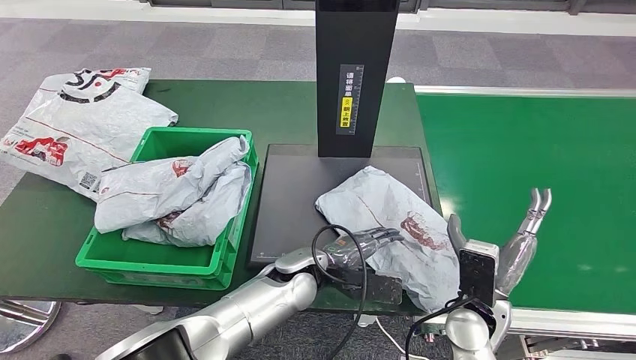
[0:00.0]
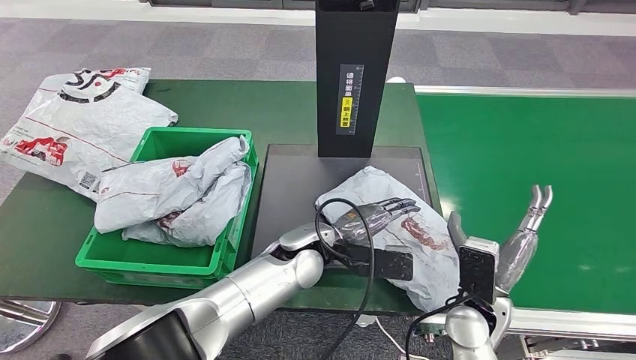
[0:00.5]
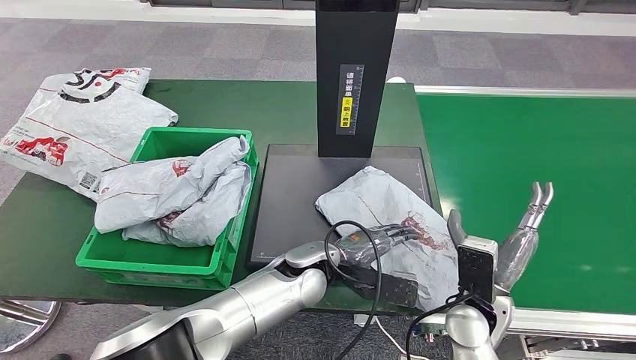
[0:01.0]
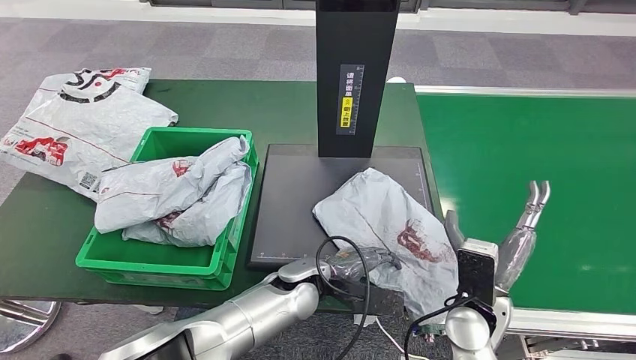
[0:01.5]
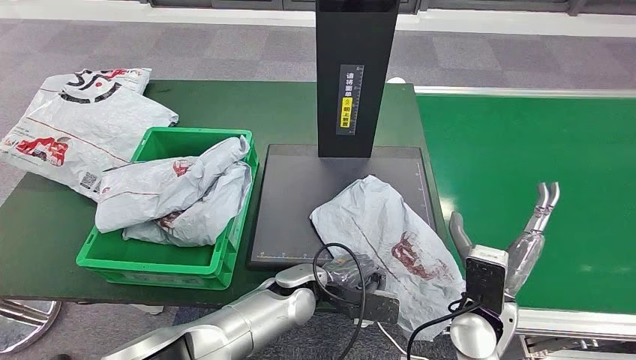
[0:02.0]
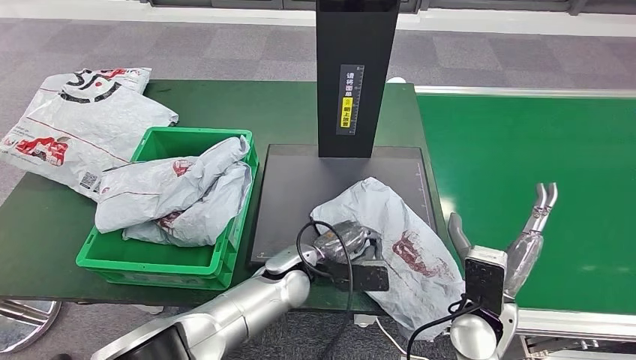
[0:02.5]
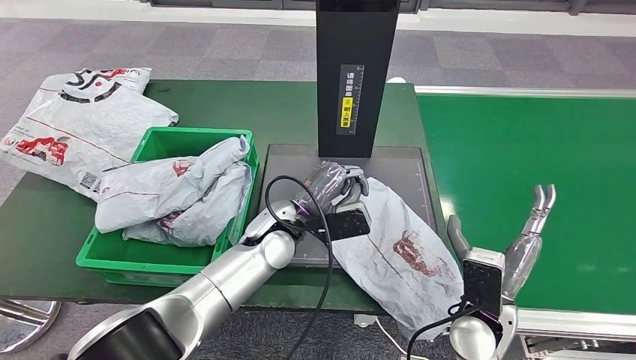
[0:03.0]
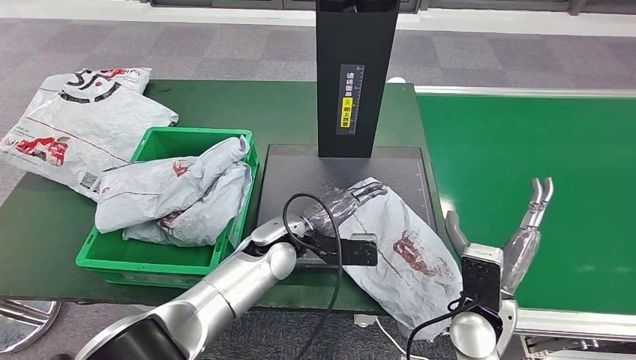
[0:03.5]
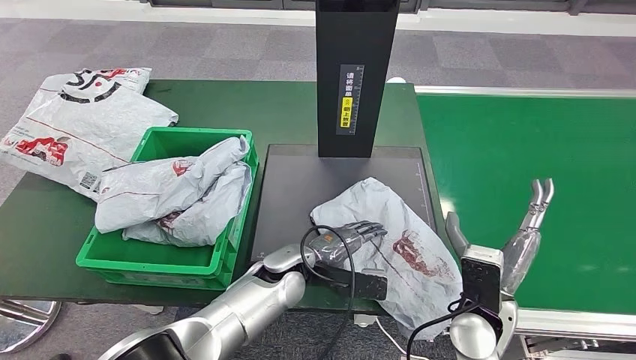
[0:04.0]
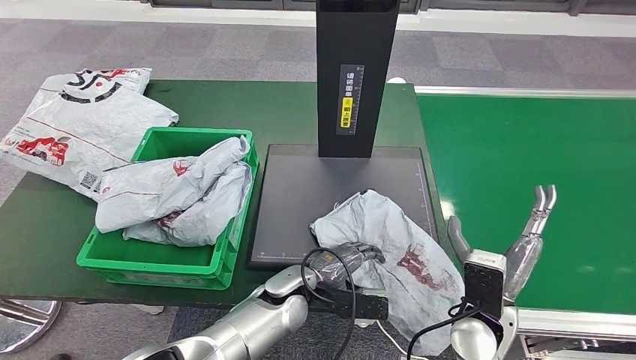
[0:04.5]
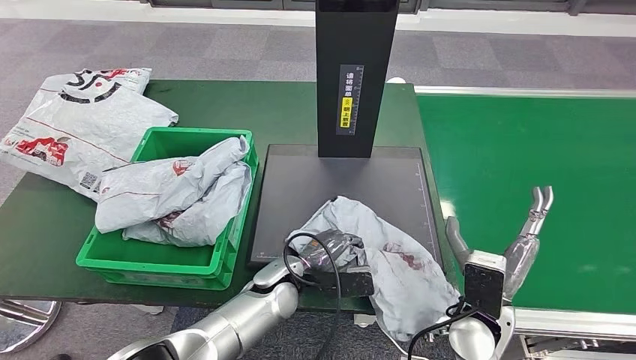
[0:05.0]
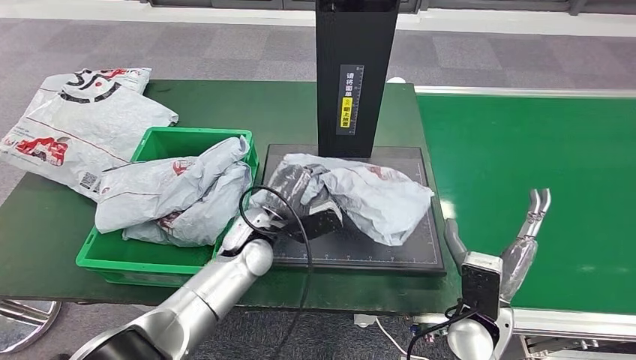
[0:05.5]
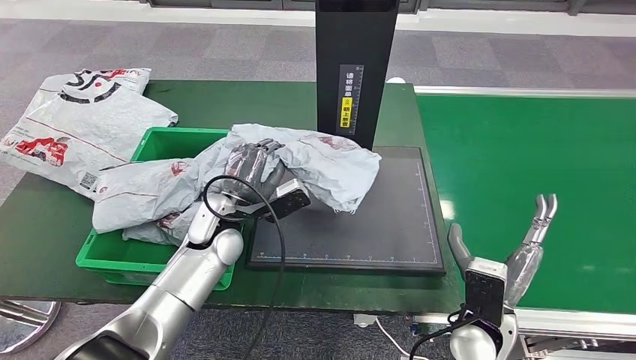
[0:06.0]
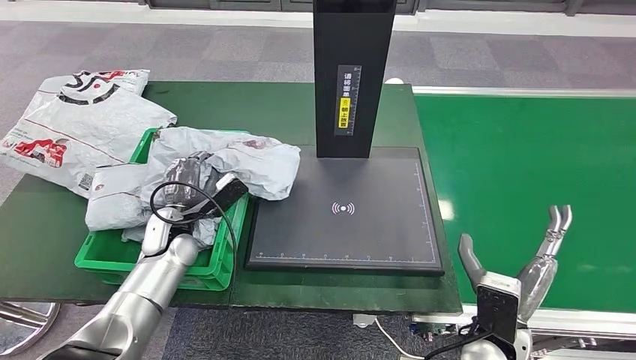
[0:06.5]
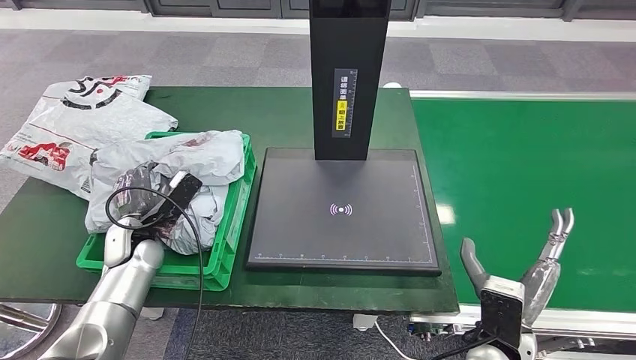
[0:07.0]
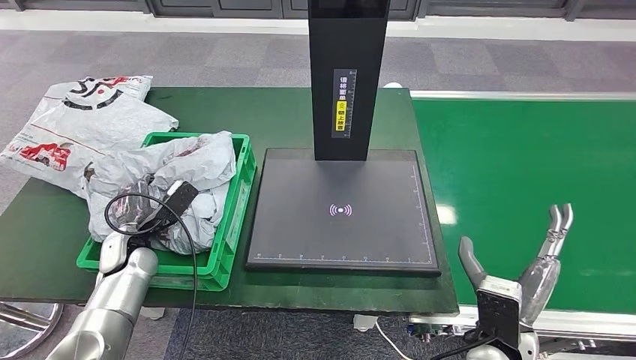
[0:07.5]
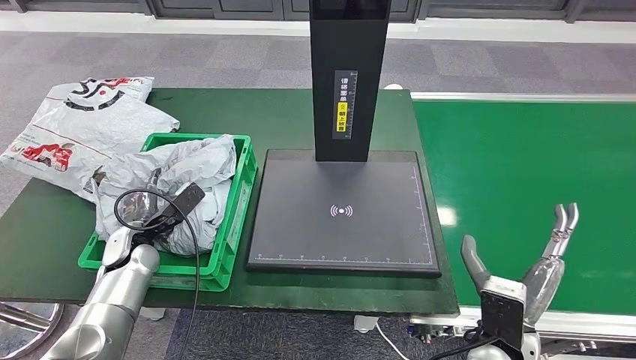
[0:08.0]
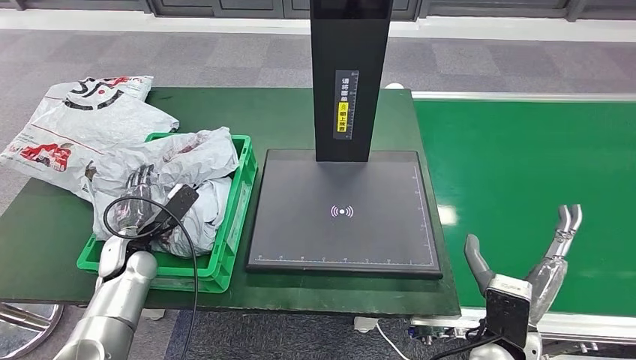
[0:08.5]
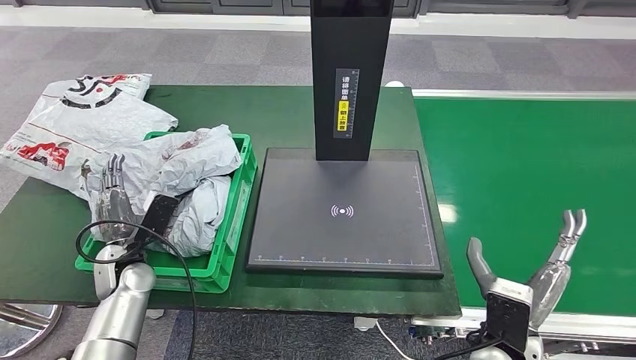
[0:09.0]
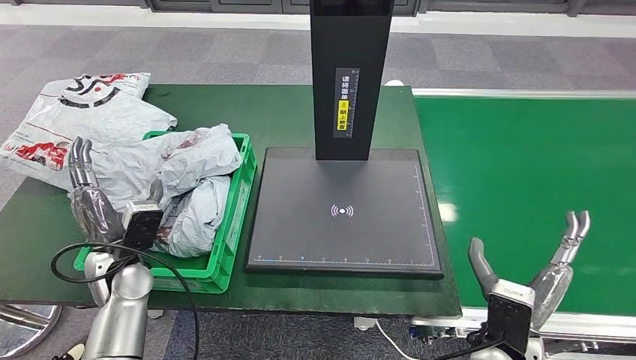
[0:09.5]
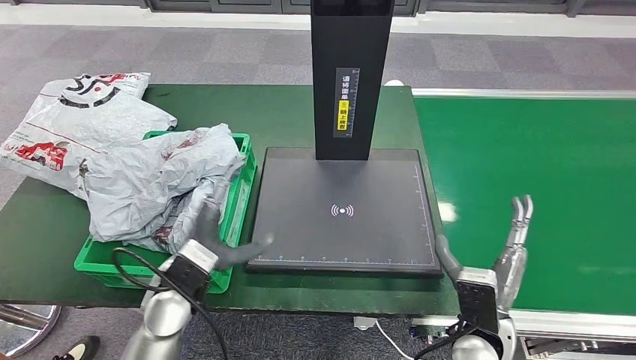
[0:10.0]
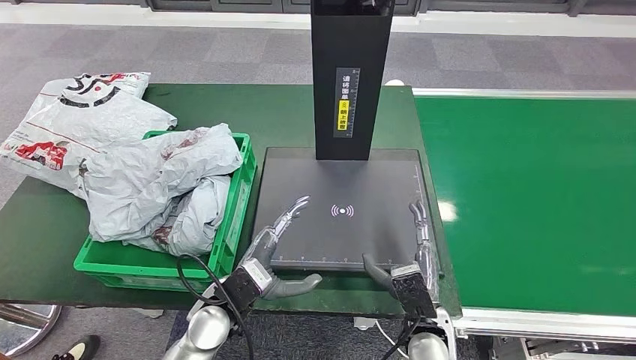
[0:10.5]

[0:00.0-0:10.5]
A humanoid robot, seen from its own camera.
Step, 0:00.0 to 0:06.5: Pick up the parcel from the inbound machine.
Step, 0:07.0 to 0:10.5: Place the parcel into the delivery box.
0:00.0 to 0:02.0: There are only small adjustments of the hands.
0:02.0 to 0:04.0: The left hand moves some 10 cm upward and comes back.

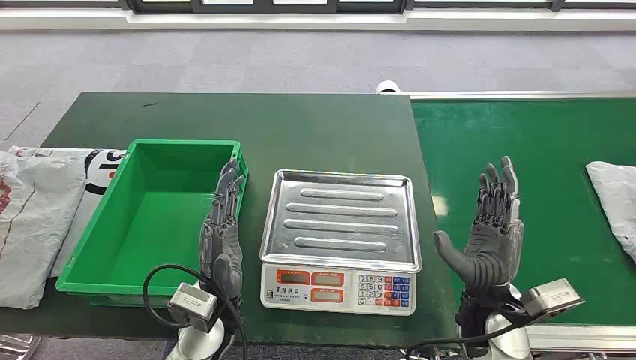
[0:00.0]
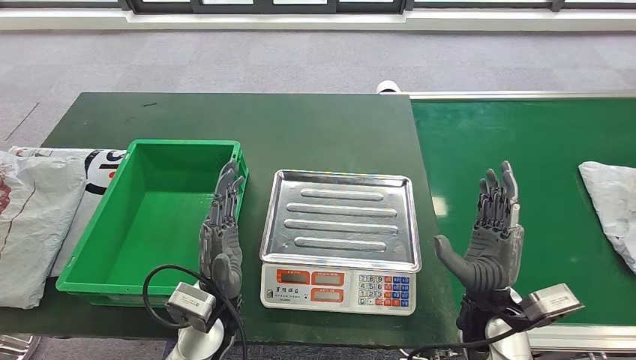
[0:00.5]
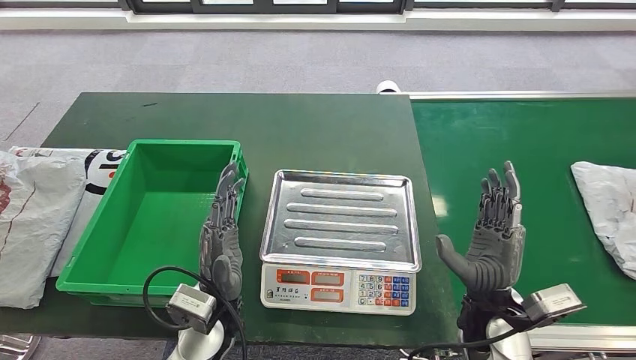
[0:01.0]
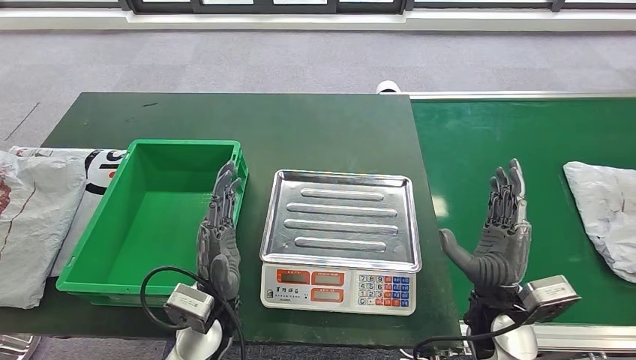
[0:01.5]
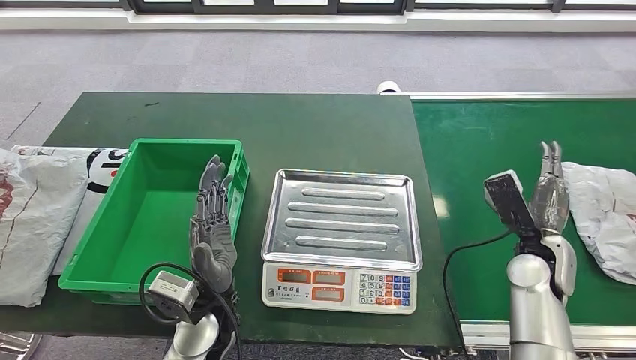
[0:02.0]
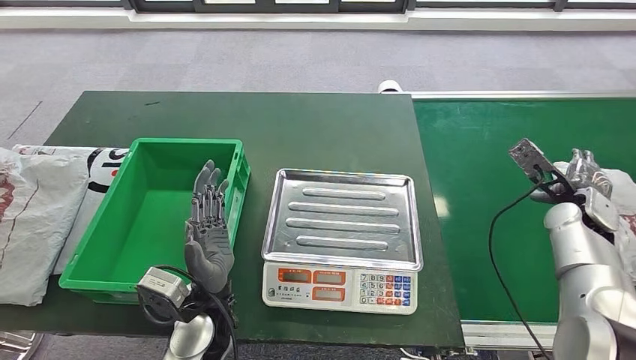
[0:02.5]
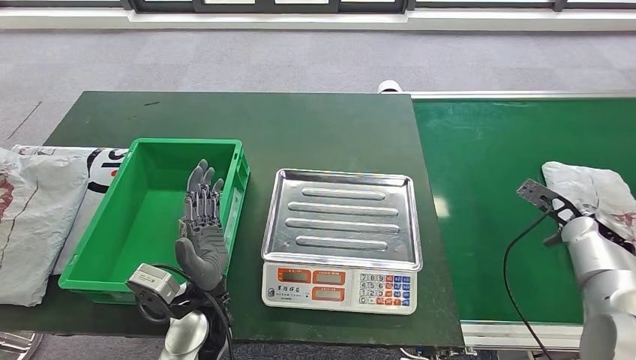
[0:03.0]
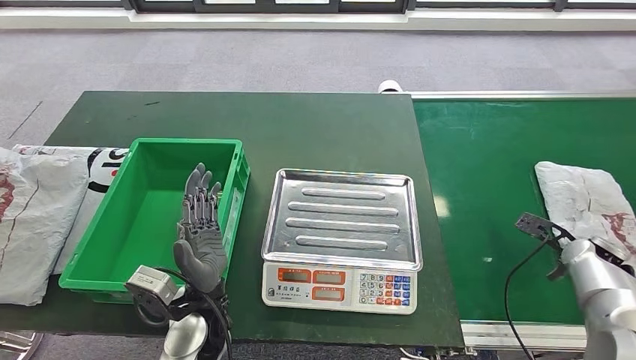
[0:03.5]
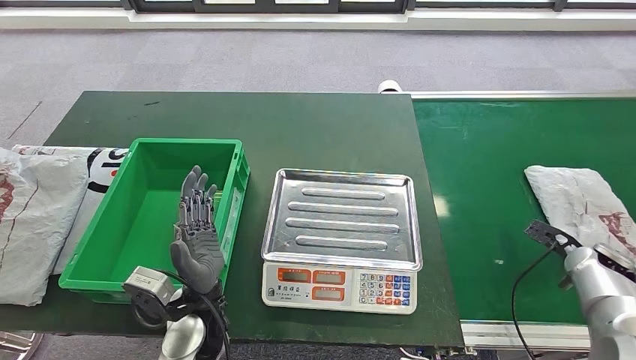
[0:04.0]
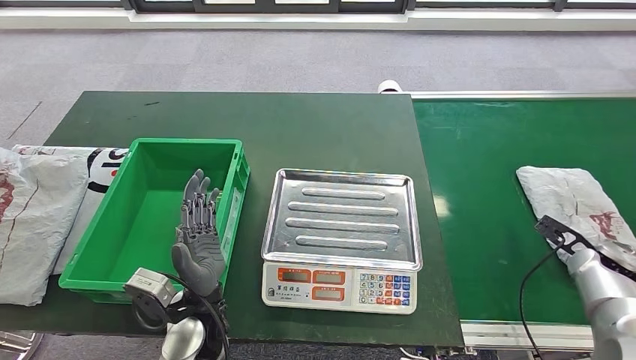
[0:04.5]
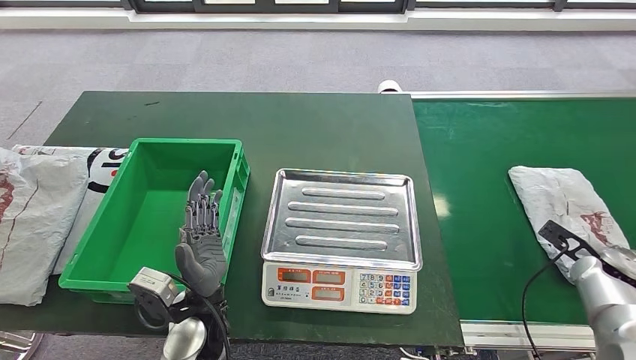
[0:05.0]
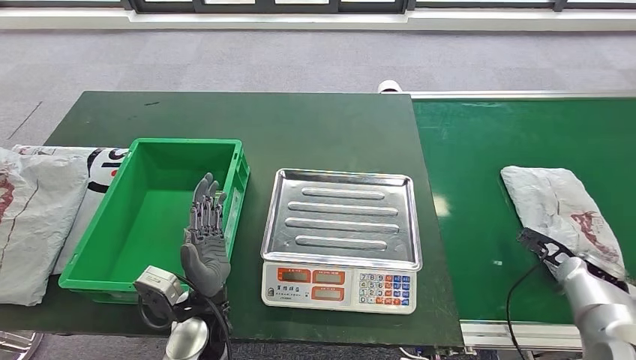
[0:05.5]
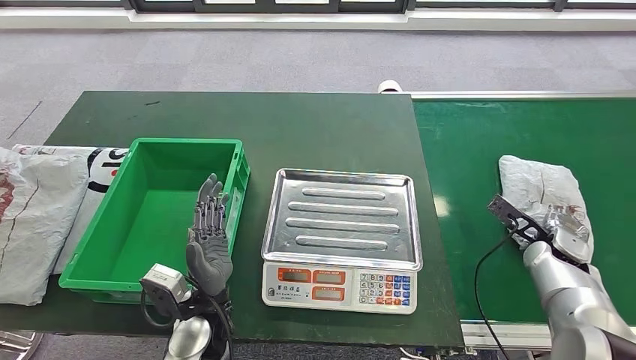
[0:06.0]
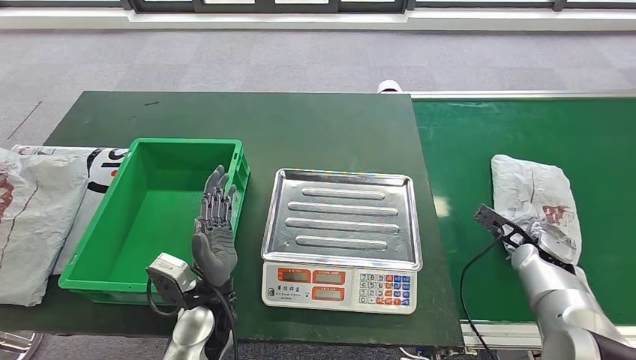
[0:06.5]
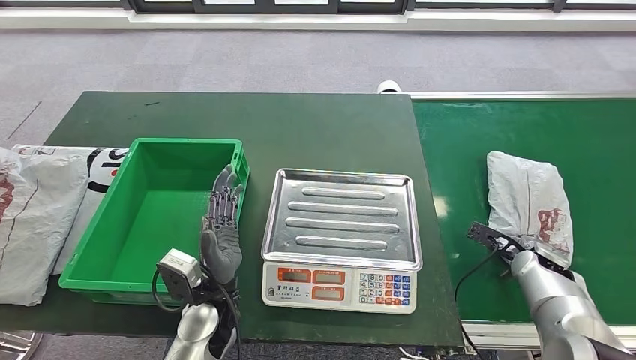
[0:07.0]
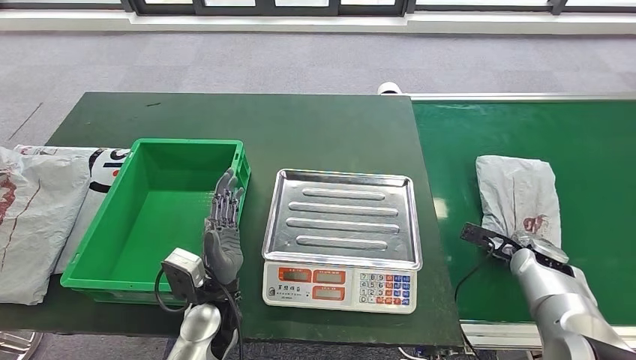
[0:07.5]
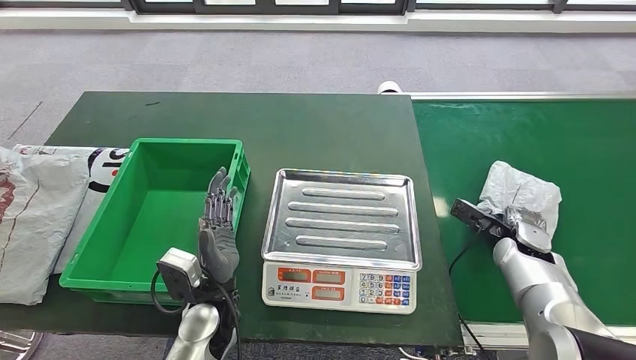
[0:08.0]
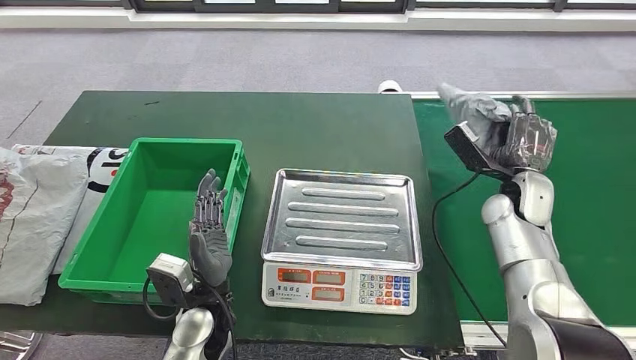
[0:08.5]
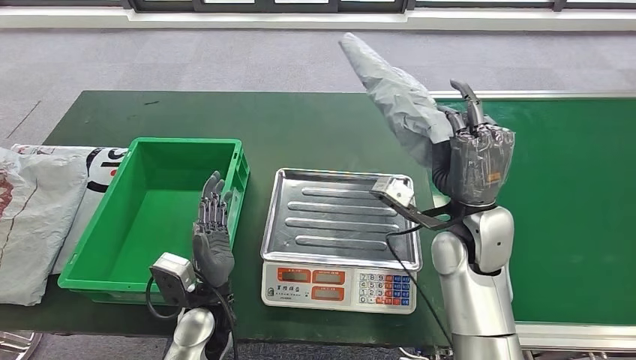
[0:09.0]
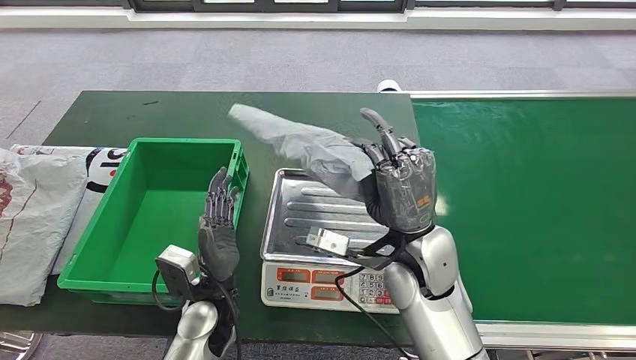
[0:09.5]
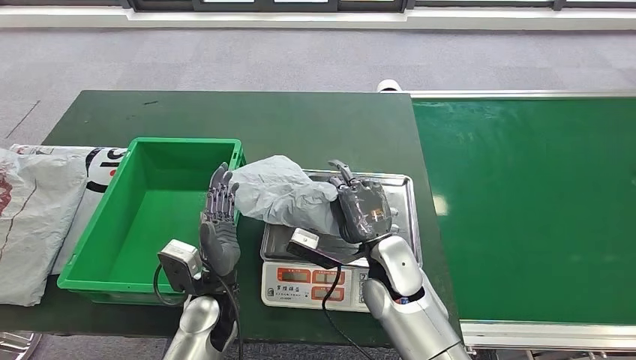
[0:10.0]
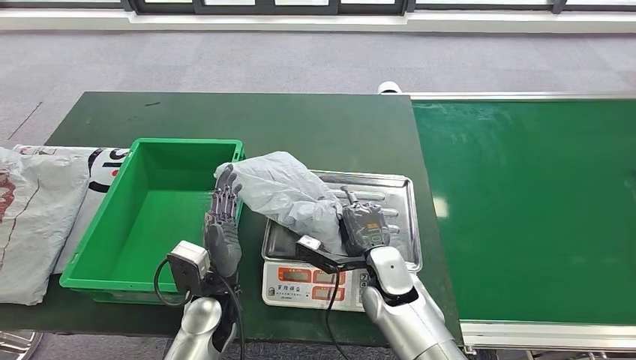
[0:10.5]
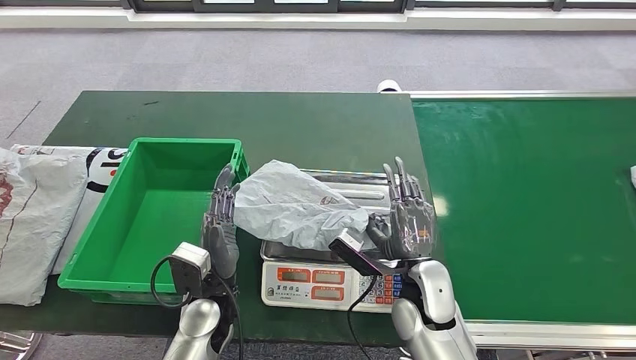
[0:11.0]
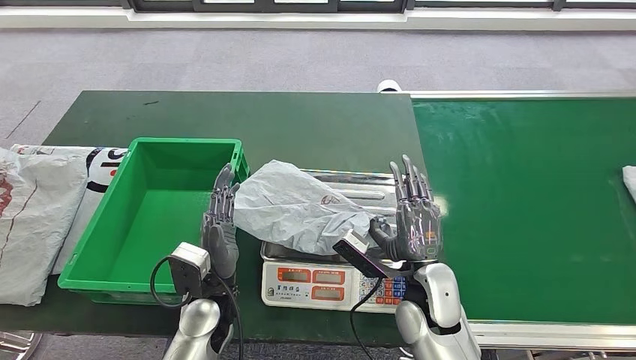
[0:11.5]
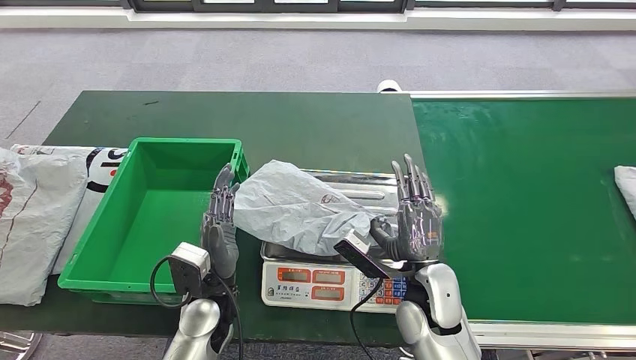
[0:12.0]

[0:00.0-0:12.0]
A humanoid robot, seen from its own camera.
Step, 0:00.0 to 0:08.0: Take the parcel off the conveyor belt.
Step, 0:08.5 to 0:12.0: Place the parcel onto the inbound machine.
0:02.0 to 0:04.0: The right hand travels to the right by approximately 15 cm.
0:04.0 to 0:06.0: The right hand moves to the left, approximately 5 cm.
0:06.0 to 0:08.0: The right hand goes some 5 cm to the left.
0:10.0 to 0:12.0: The right hand heads to the right, covering some 5 cm.
